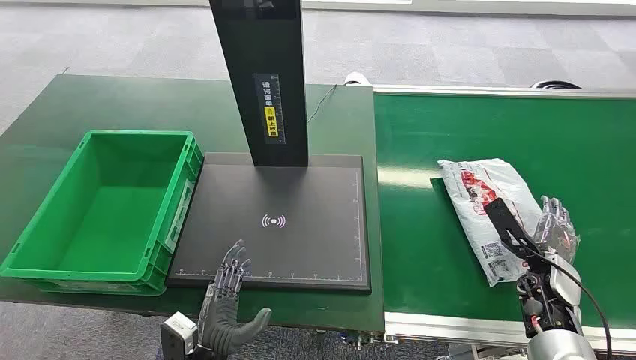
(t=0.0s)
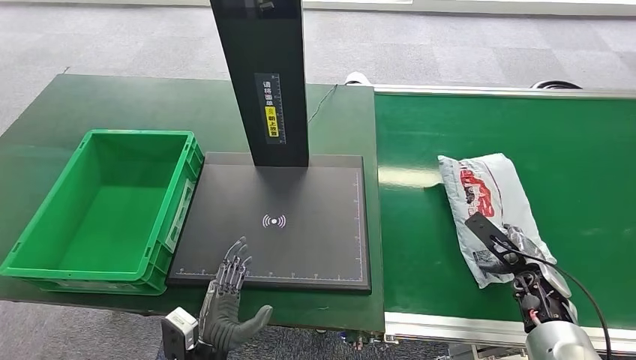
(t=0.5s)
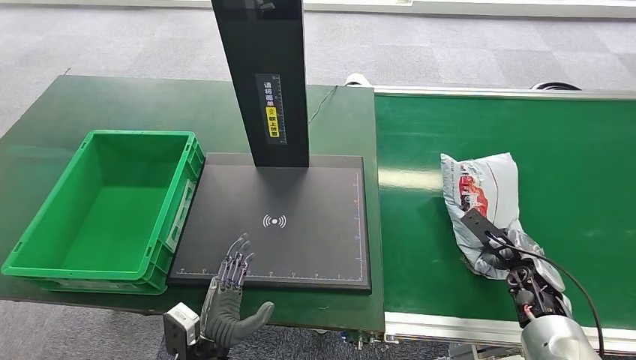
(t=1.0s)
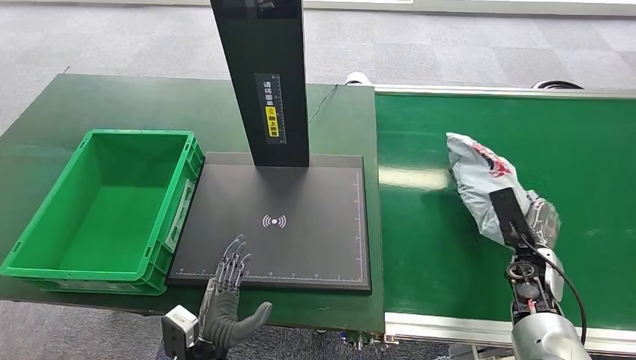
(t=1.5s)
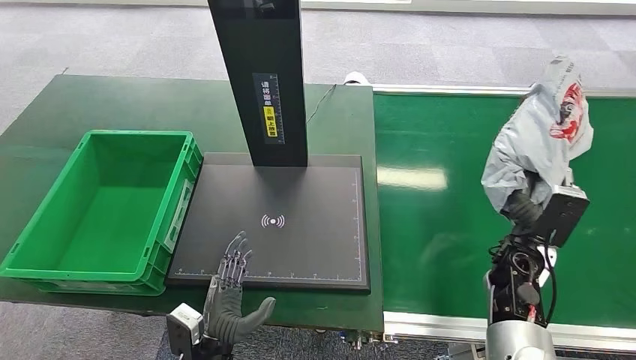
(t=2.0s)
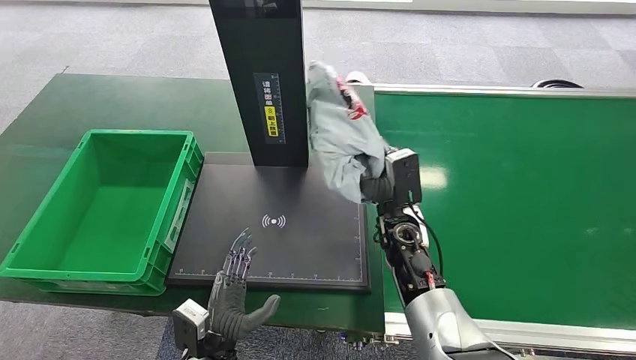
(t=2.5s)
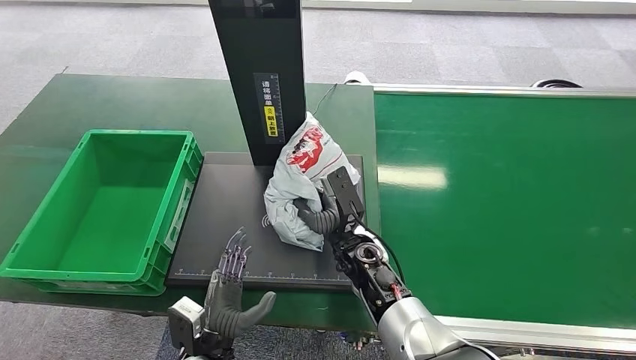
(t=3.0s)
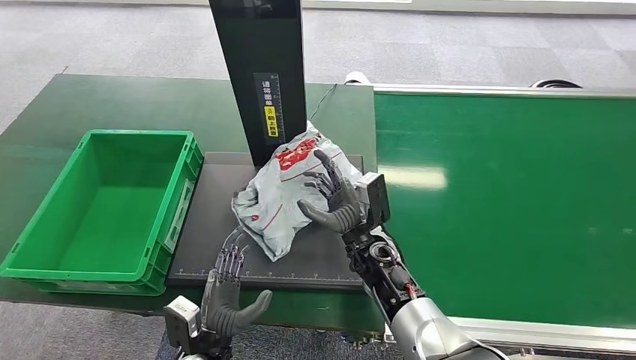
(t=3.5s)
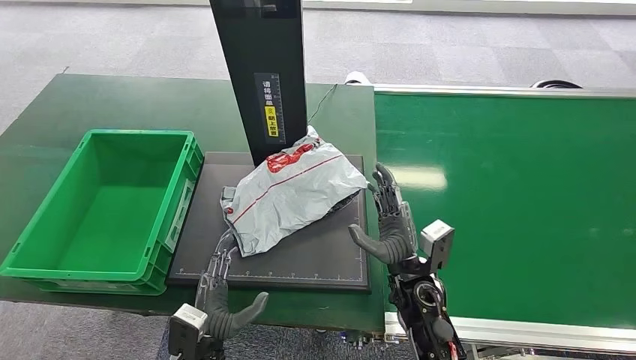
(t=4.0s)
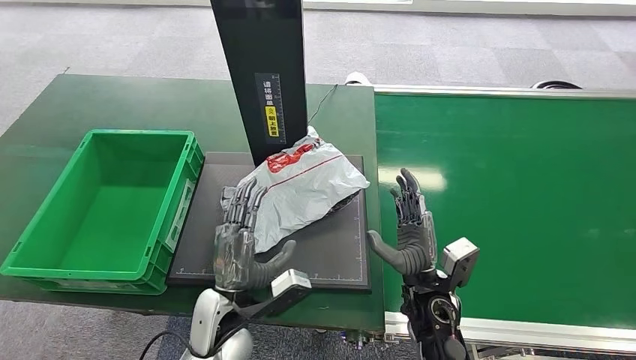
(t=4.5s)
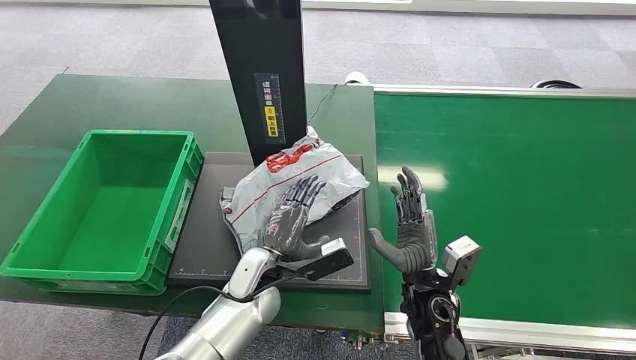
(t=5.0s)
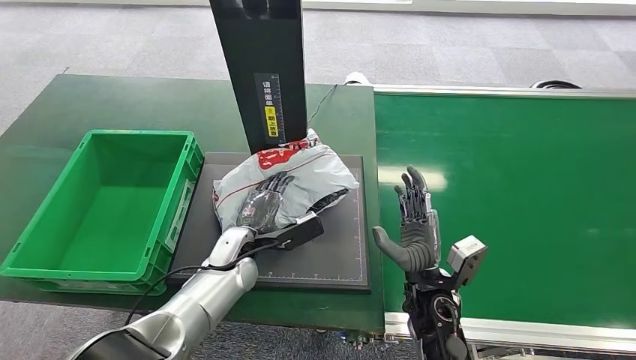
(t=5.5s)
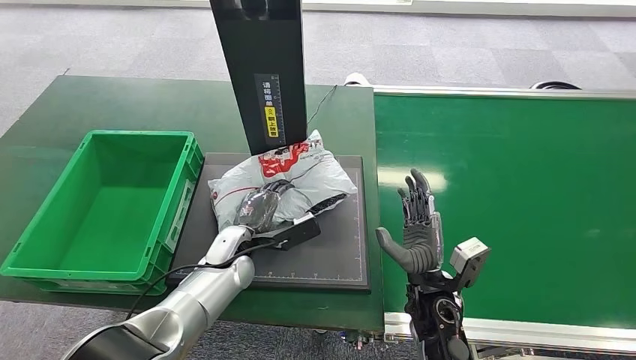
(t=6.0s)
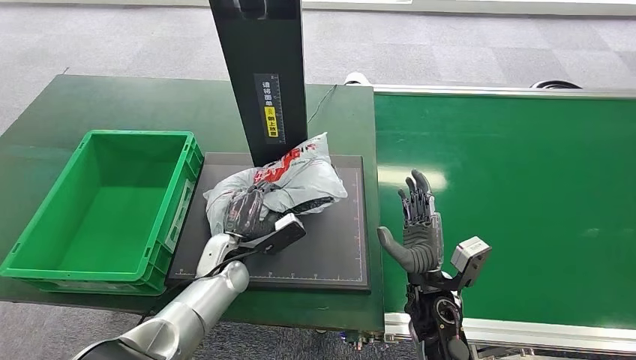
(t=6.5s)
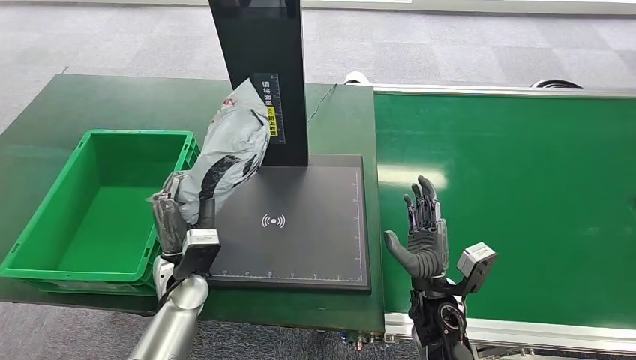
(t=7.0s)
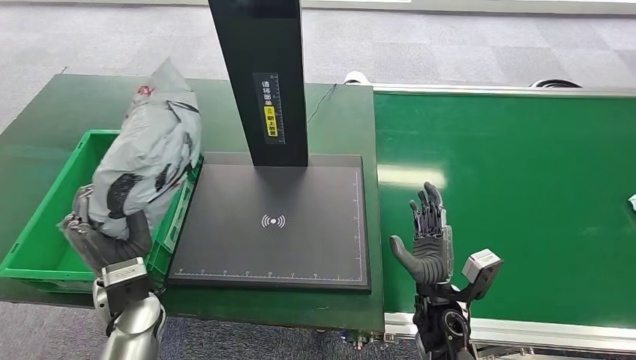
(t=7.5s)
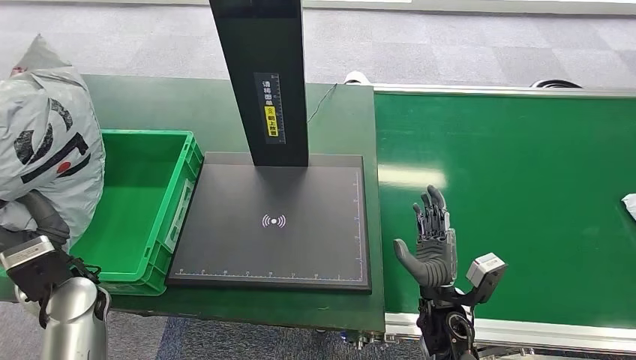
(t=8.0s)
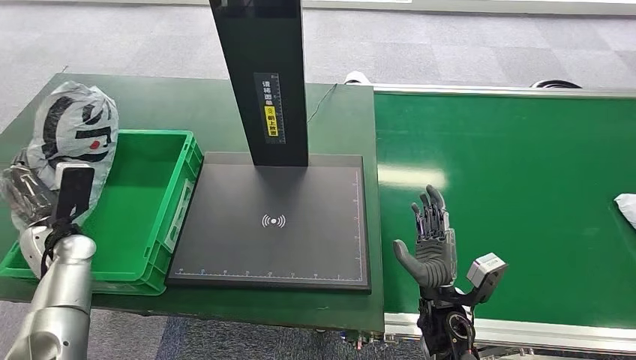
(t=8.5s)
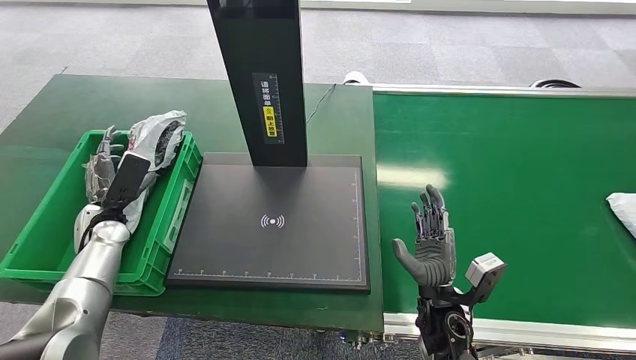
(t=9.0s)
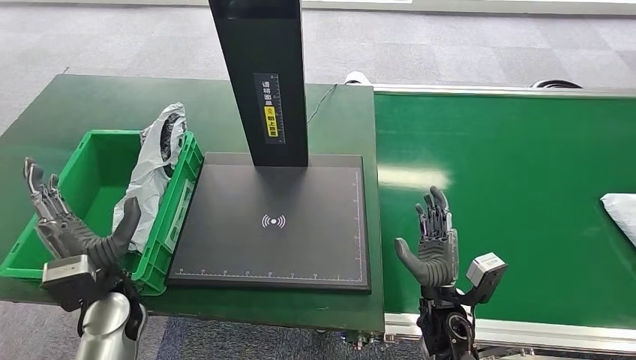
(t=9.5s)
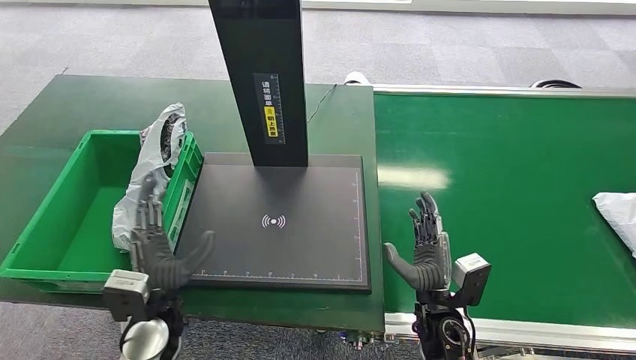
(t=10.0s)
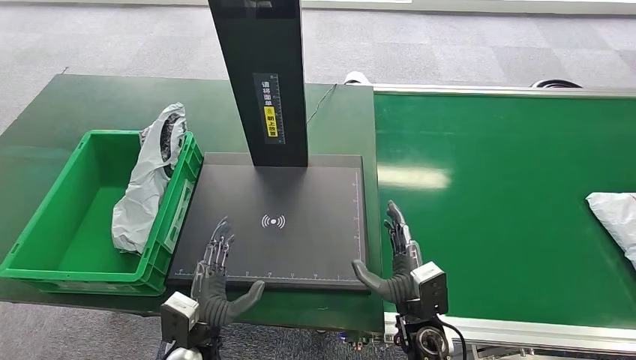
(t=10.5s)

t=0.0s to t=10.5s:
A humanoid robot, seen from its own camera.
Step, t=0.0s to t=1.5s: Pick up the package from the conveyor belt.
Step, t=2.0s to t=4.0s: Place the package onto the inbound machine.
Step, t=4.5s to t=6.5s: Pick up the package from the inbound machine.
Step, t=7.0s to t=10.5s: Place the package into the parcel locker.
t=4.0s to t=6.5s: The left hand goes approximately 15 cm forward.
t=8.5s to t=10.5s: The left hand travels to the right and backward by about 30 cm.
